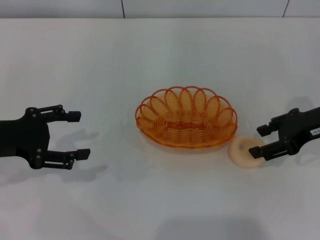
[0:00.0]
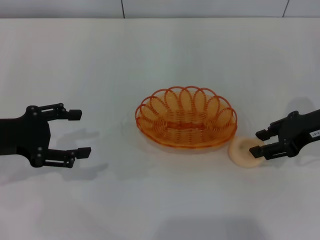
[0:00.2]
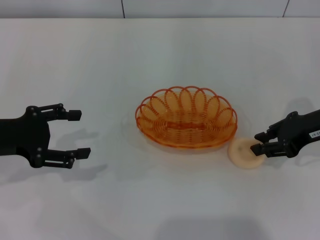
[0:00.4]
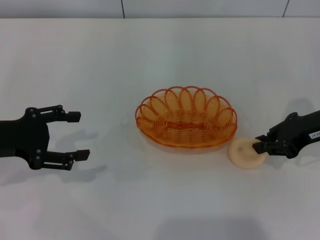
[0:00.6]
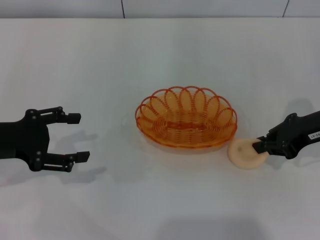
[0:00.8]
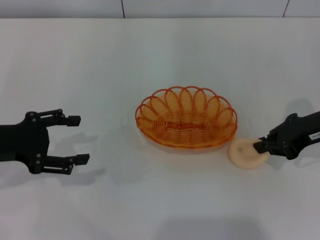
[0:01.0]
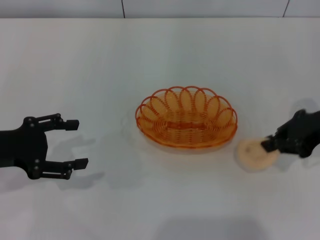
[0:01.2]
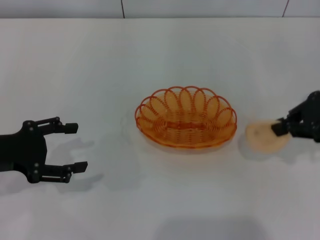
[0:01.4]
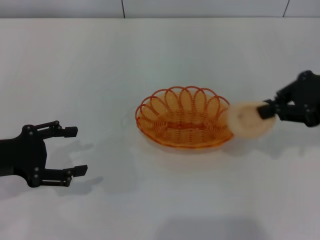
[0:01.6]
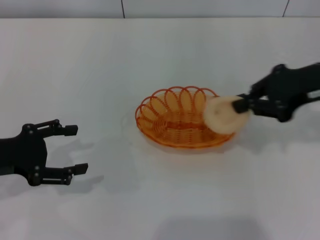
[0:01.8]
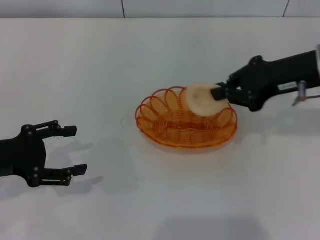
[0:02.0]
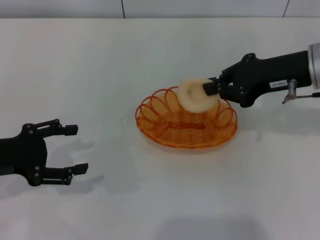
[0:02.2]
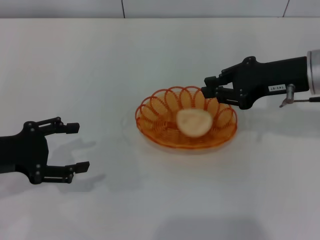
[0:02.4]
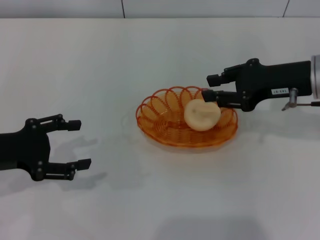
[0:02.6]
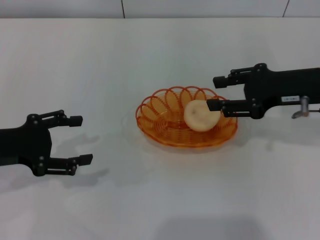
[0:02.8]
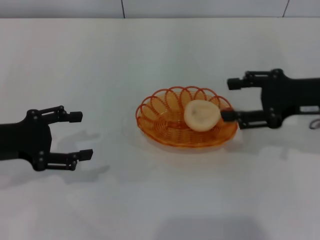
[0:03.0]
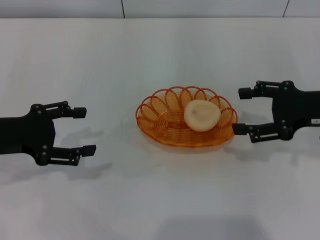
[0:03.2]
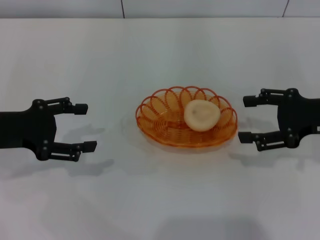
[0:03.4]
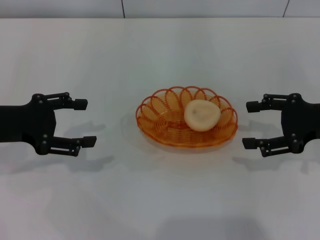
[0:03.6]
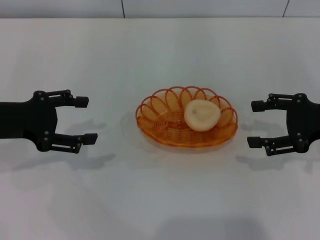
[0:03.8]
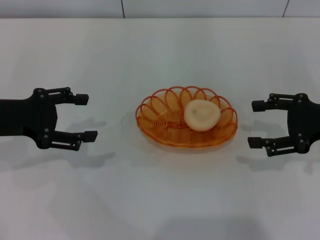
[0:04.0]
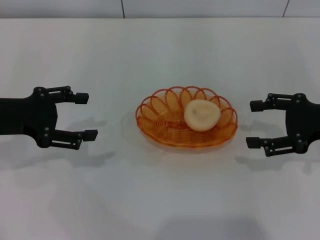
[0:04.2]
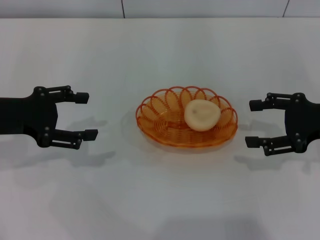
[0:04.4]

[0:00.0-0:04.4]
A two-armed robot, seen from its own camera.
Step, 0:01.6 to 0:02.6: Place the egg yolk pastry into the basket with the right gripper.
0:00.0 to 0:01.4: The right gripper is displaced upward by some 5 cm, and closes up.
0:01.4 to 0:03.0: The right gripper opens.
0:03.0 to 0:04.4: The right gripper opens up.

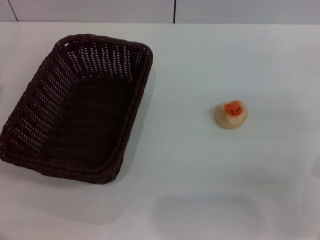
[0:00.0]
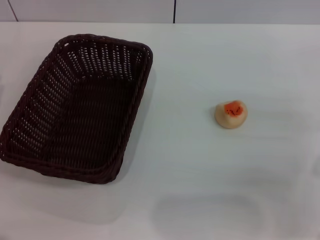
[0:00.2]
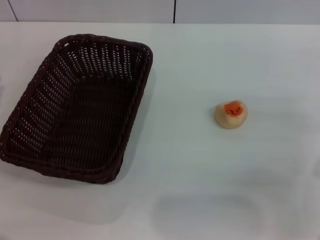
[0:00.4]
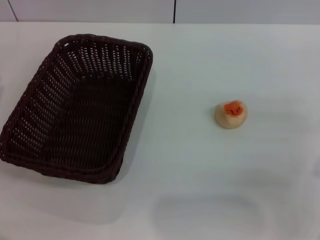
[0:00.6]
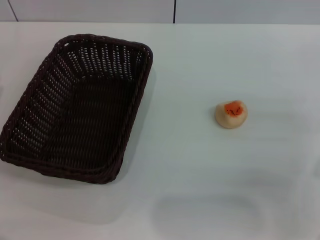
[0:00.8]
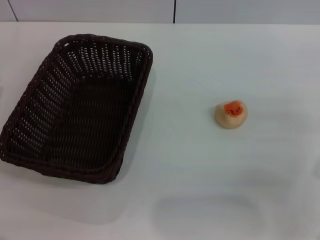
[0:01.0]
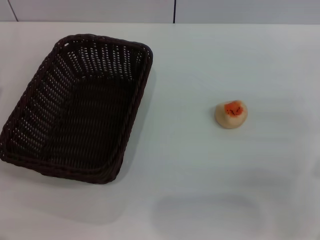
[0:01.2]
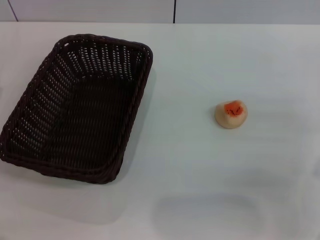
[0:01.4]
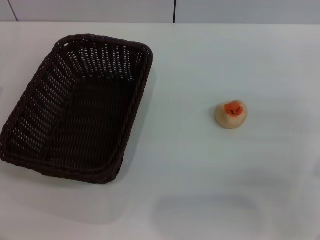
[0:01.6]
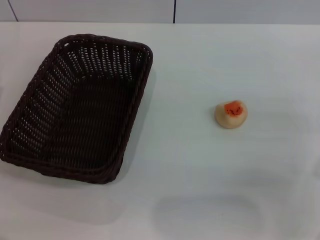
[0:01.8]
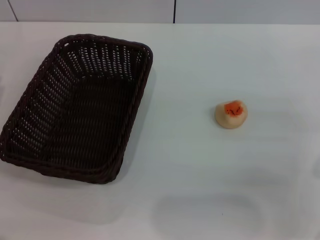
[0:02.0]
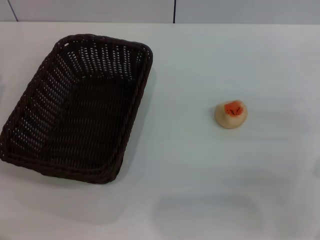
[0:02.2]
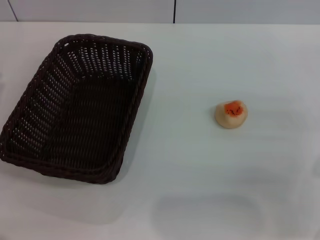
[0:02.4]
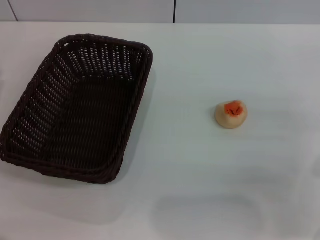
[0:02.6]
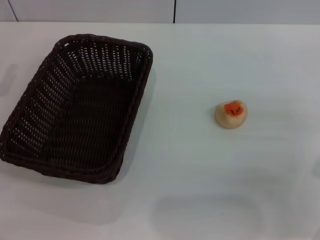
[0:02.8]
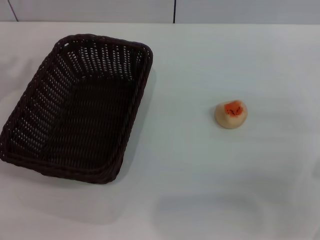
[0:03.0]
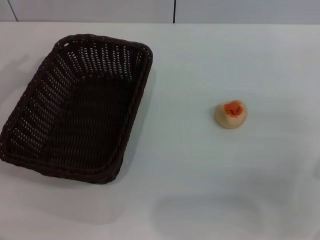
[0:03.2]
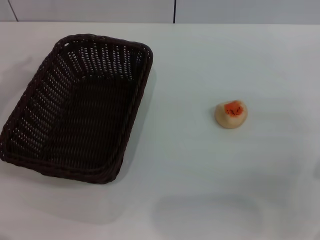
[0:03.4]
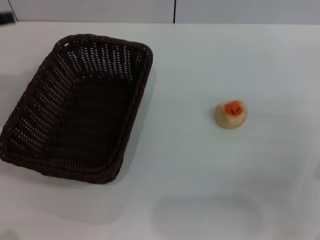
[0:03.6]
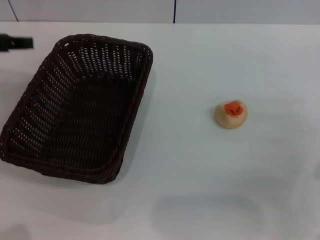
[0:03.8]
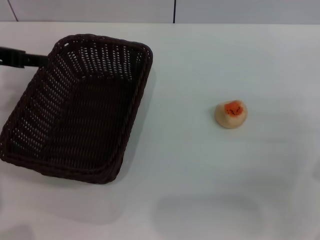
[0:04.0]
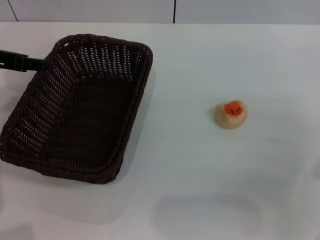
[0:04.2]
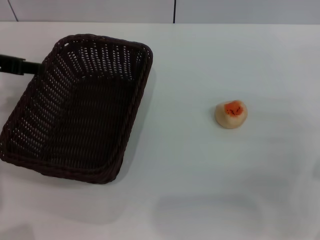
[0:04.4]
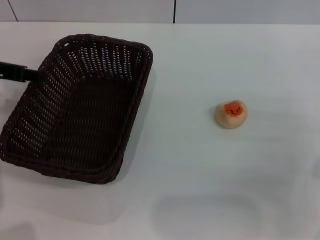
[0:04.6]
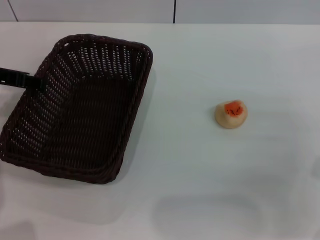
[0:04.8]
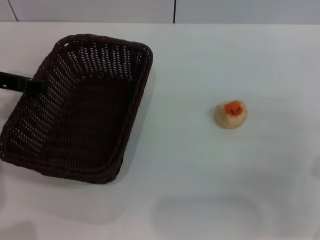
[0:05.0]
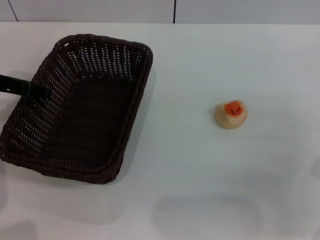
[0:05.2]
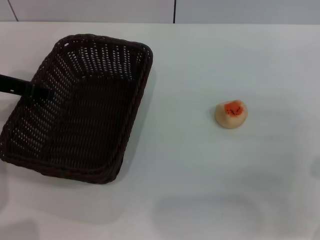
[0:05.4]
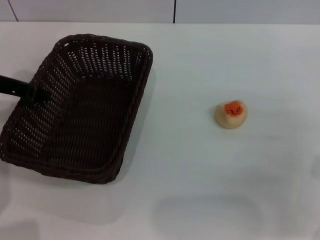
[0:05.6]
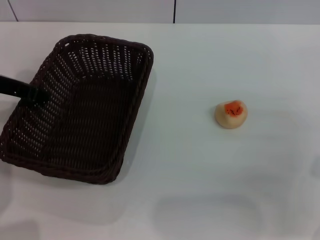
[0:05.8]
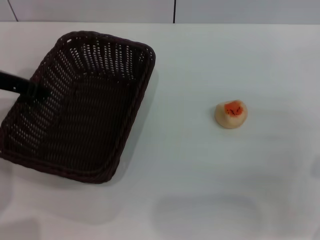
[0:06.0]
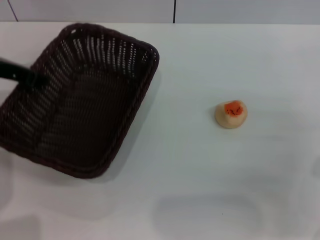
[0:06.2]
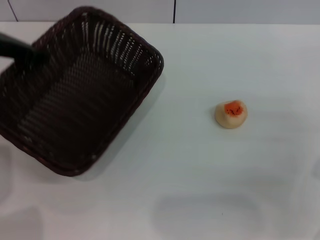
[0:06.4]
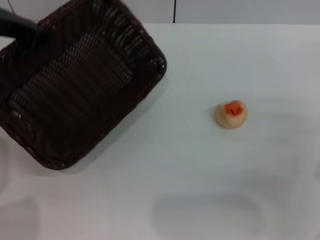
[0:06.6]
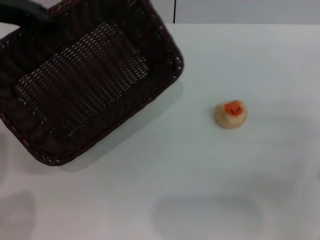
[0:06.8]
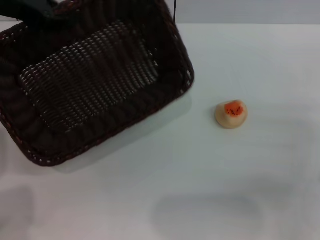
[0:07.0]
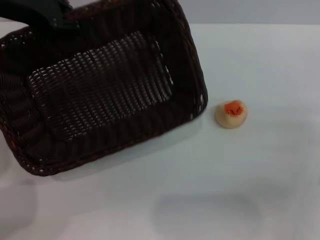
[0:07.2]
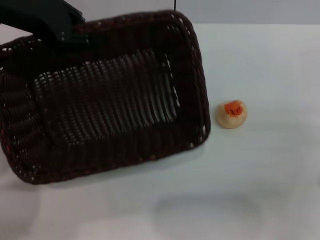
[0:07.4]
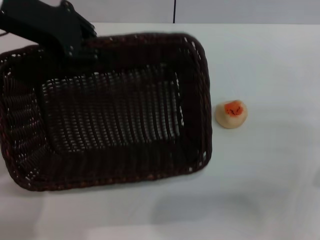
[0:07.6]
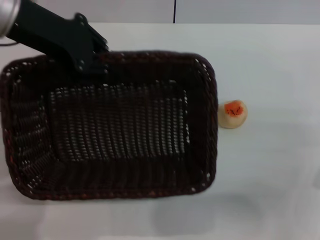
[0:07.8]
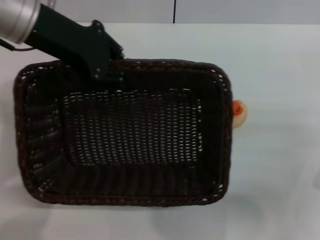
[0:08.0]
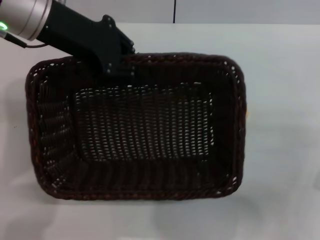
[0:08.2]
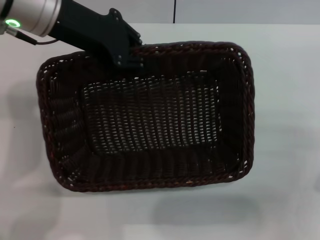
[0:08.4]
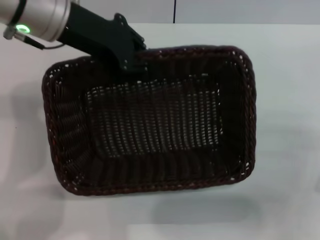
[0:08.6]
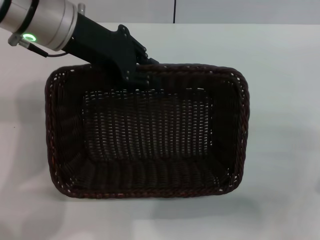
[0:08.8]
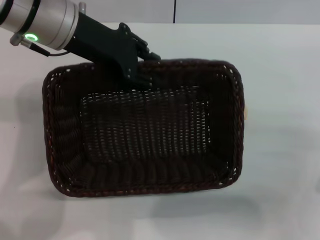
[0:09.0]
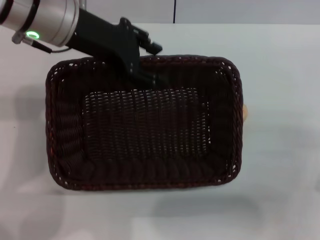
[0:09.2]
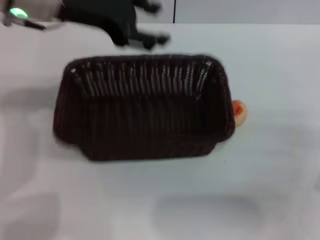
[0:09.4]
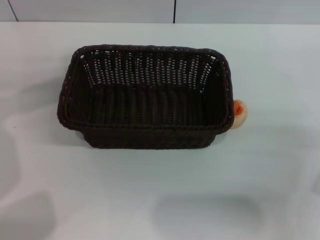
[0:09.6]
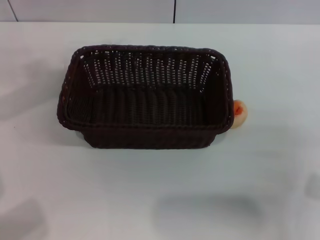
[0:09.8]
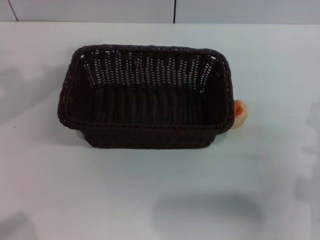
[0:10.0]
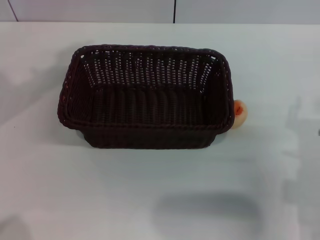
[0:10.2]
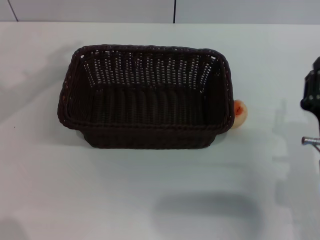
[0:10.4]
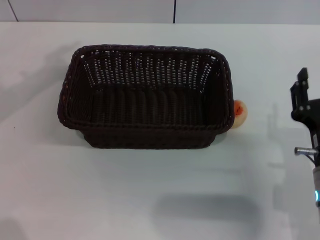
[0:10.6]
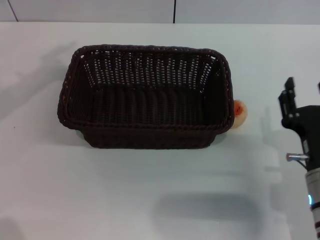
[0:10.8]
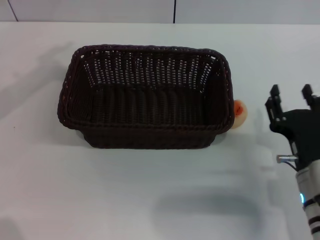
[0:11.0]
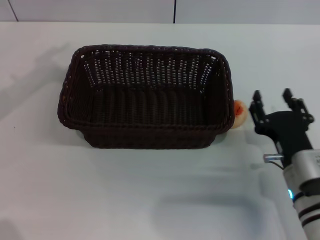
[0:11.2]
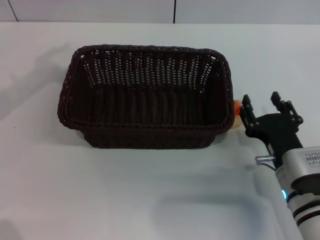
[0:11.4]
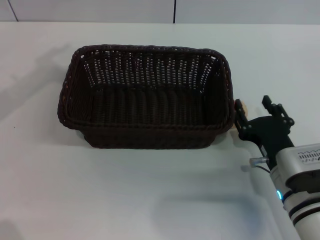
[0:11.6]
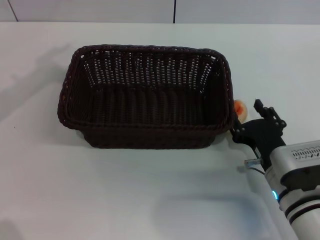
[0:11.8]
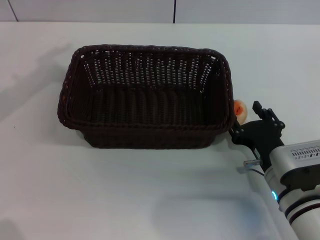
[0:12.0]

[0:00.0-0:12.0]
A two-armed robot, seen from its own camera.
Step, 0:00.0 to 0:09.4: Move the basket to the center of view with the left gripper.
0:00.0 to 0:01.6: Both grippers stay about where they are.
0:03.0 to 0:04.4: The left gripper goes roughly 10 cm to the right and forward.
0:04.4 to 0:06.0: The left gripper closes up.
0:06.0 to 0:07.6: The left gripper shifts about 10 cm upward and to the right.
0:07.6 to 0:09.0: The left gripper is displaced to the right by roughly 5 cm.
0:09.0 to 0:10.4: The right gripper heads to the left, covering some 5 cm, while the left gripper moves to the left, some 15 cm, and opens up.
0:10.4 to 0:12.0: The right gripper shifts roughly 5 cm downward, and opens up.

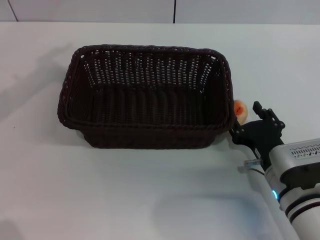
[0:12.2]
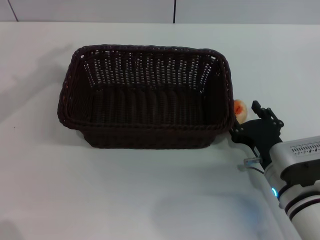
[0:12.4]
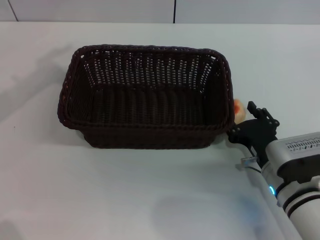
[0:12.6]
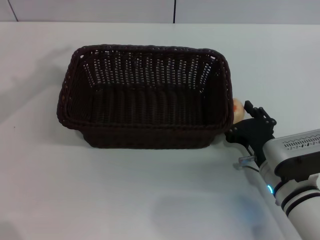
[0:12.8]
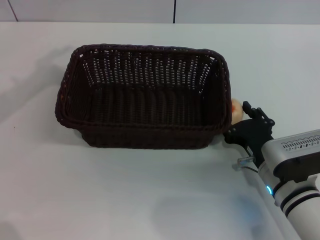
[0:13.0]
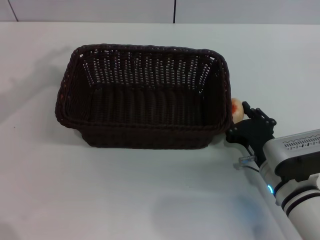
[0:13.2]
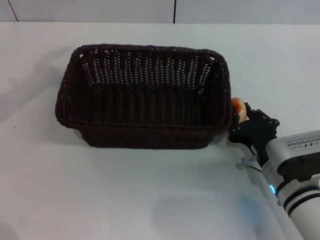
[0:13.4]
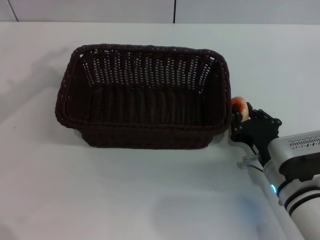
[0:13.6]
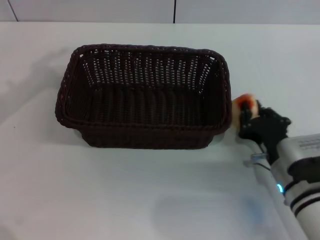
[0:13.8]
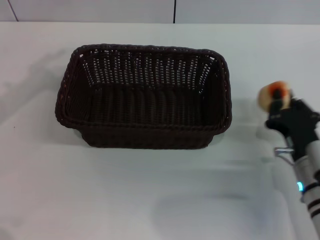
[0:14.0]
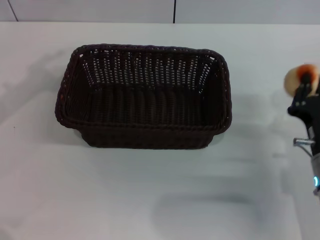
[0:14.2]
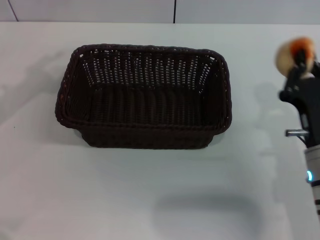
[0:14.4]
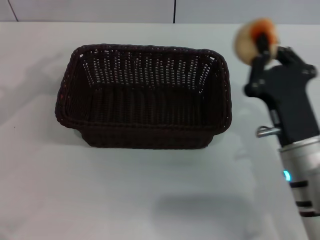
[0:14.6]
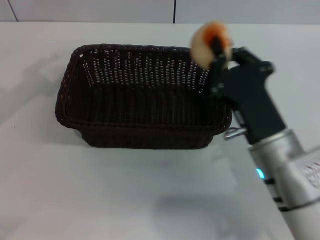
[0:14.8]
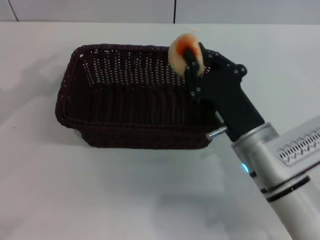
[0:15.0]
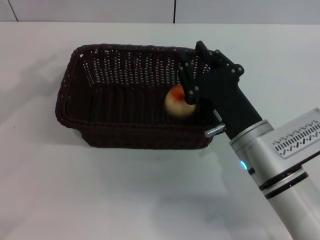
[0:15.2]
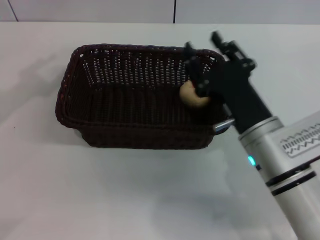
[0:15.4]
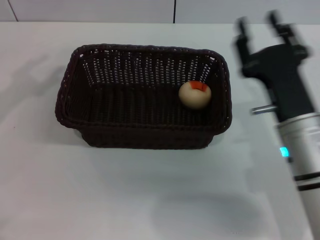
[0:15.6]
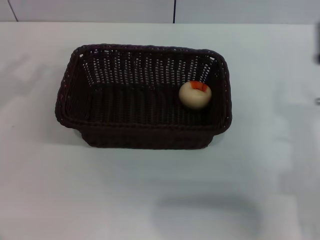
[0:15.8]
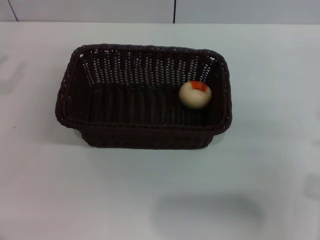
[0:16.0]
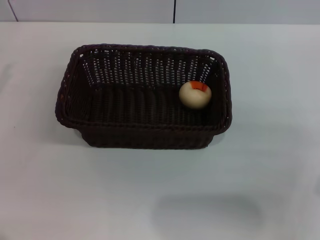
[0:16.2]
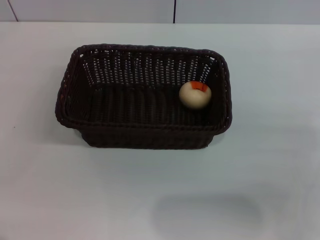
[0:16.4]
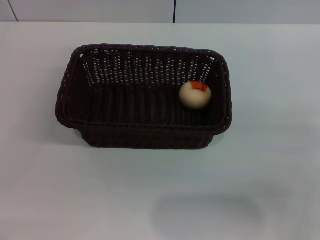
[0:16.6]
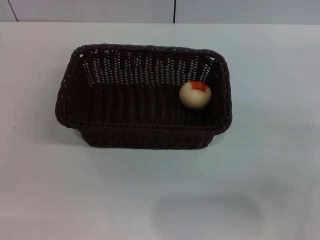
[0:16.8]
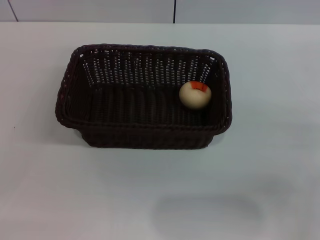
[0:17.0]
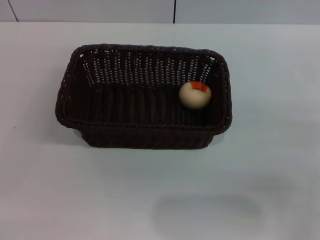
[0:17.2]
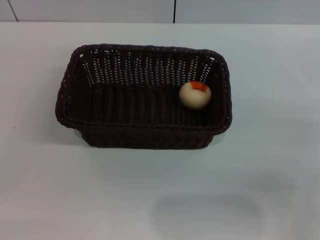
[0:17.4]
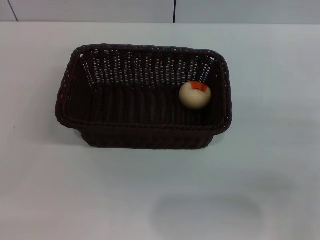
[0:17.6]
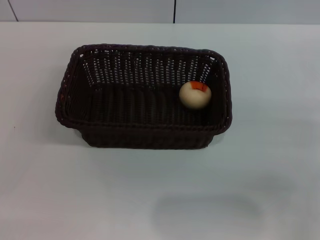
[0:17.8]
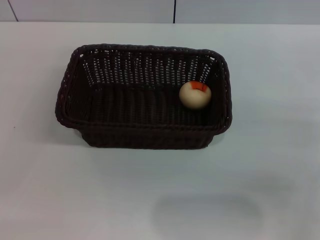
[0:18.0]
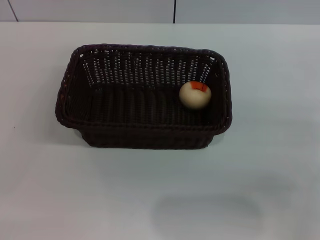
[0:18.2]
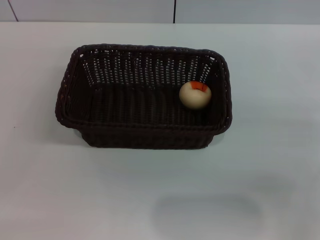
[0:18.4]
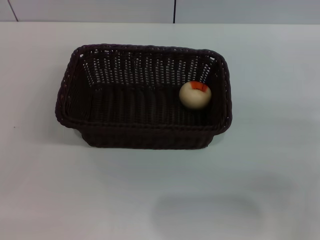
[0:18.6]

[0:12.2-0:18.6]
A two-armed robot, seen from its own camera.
Step, 0:14.0 to 0:15.4: Place the egg yolk pastry into the basket with the right gripper.
0:12.2 to 0:13.8: The right gripper closes.
0:13.8 to 0:15.4: The right gripper moves upward and to the left, roughly 10 cm.
0:15.4 to 0:17.0: The right gripper is displaced to the right by some 15 cm, and opens up. Meanwhile the left gripper travels downward by approximately 15 cm.
0:17.0 to 0:18.6: Both grippers stay put.
